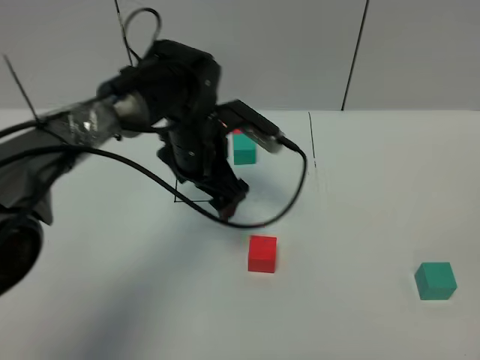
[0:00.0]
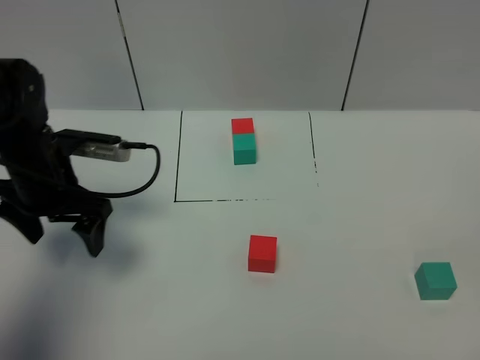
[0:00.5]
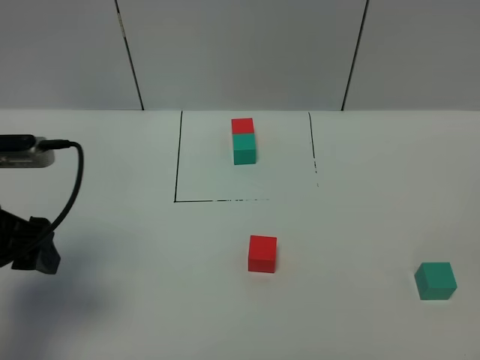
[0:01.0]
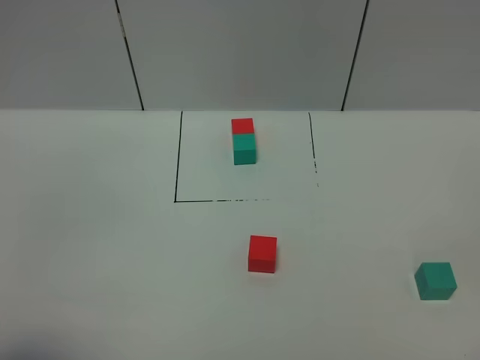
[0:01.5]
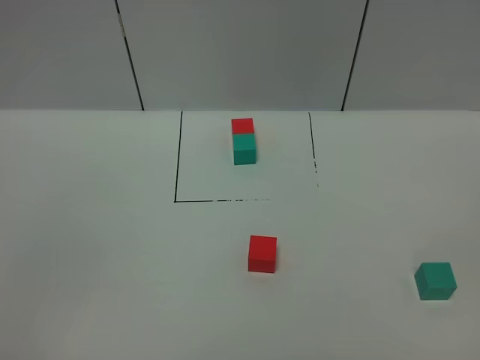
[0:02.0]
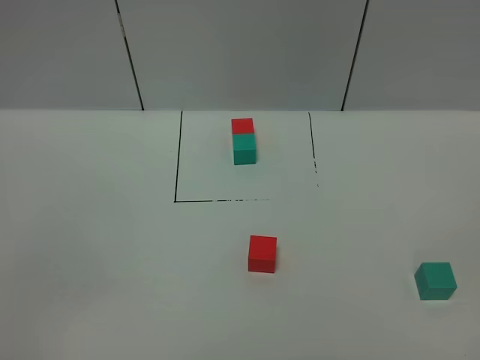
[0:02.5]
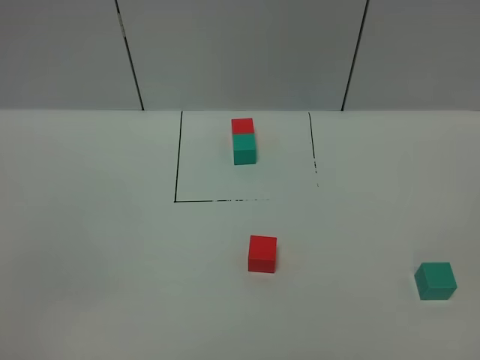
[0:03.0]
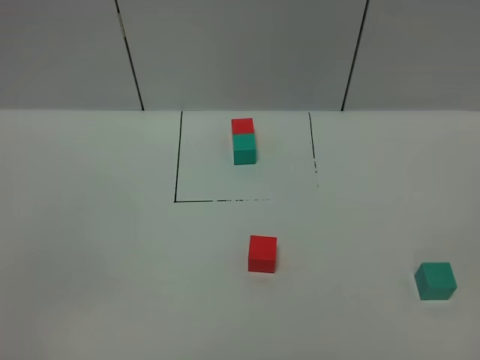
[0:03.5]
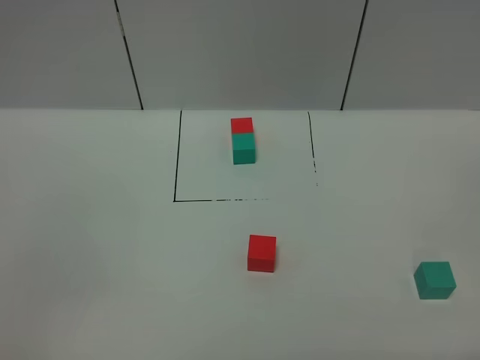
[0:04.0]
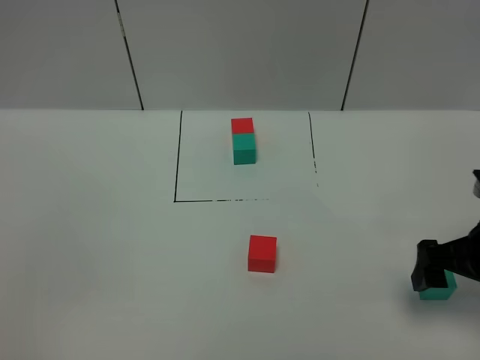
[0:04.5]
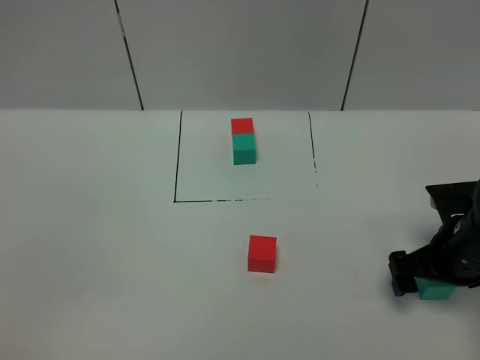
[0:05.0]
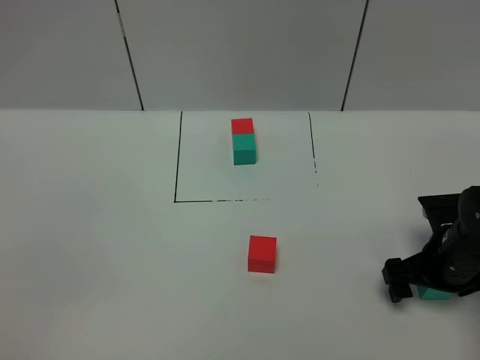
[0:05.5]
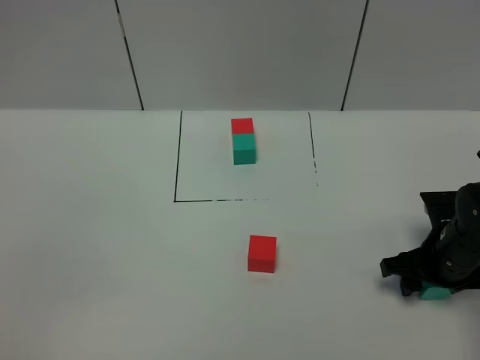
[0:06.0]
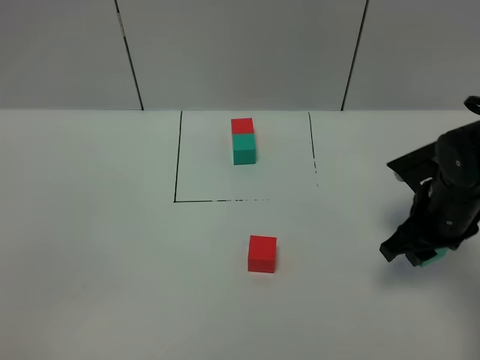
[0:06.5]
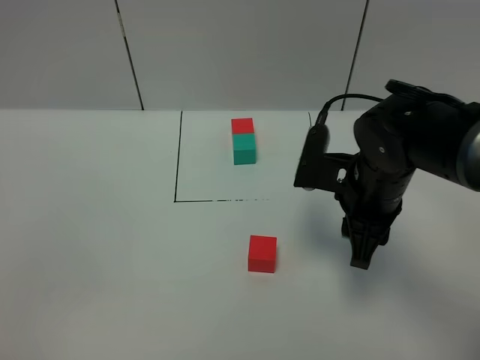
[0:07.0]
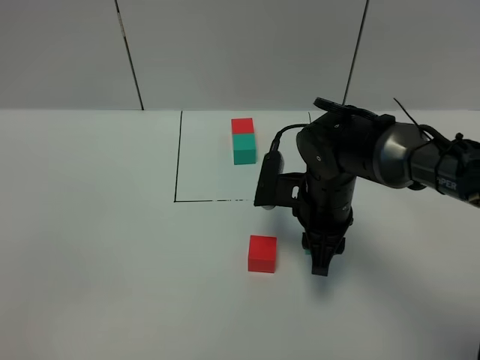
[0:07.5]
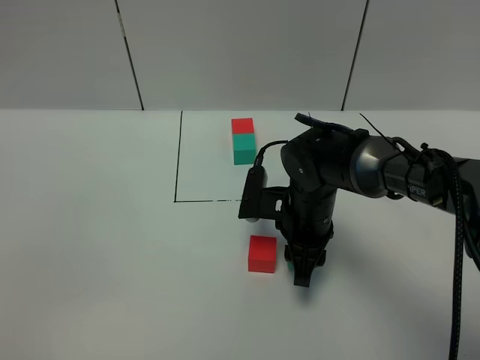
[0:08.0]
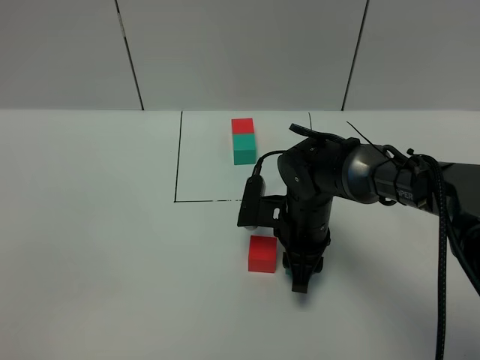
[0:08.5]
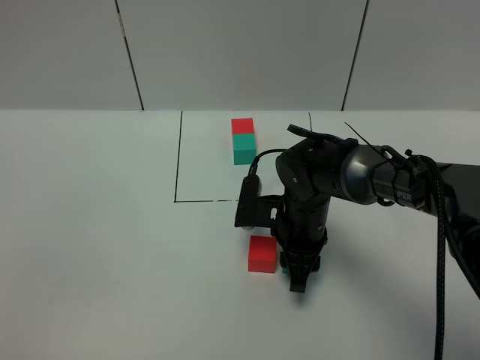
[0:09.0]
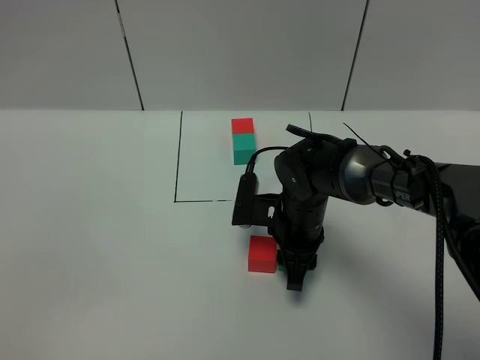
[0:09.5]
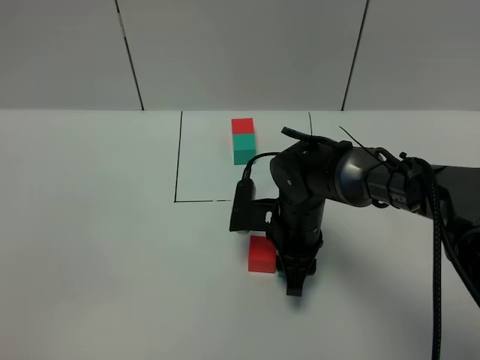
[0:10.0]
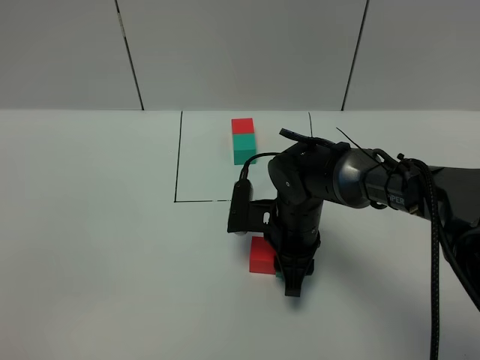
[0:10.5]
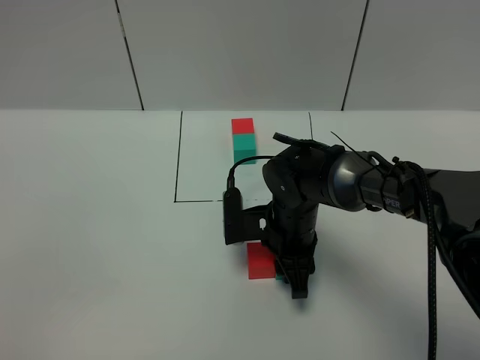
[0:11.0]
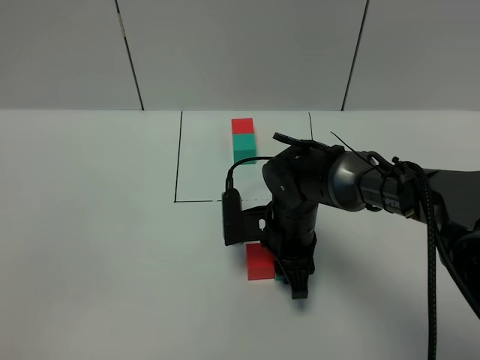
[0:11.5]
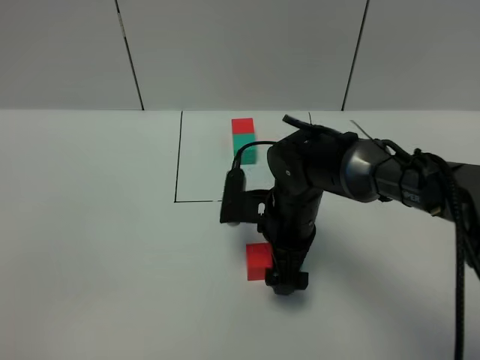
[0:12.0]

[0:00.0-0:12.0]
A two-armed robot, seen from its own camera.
Task of the whole recording: According to the building block template in front, assemble the scattered blocks together.
0:00.0 to 0:02.0: The left gripper goes some 50 cm backward and to the left.
0:04.0 to 0:06.0: The right gripper goes about 30 cm forward and downward, and closes its fingers.
0:06.0 to 0:08.0: The right gripper moves to the left, roughly 20 cm.
0:08.0 to 0:10.0: There are only small adjustments of the grippers.
0:10.0 to 0:12.0: The right gripper opens.

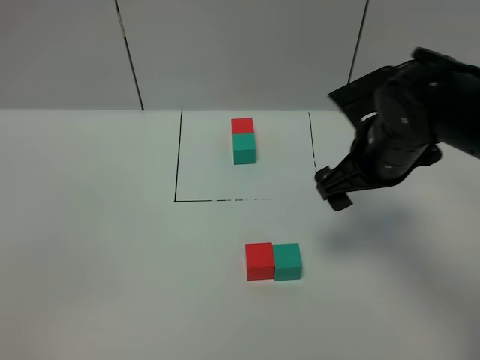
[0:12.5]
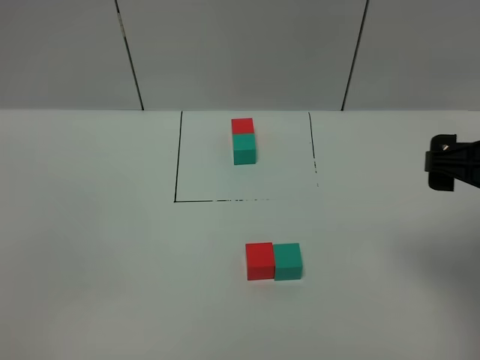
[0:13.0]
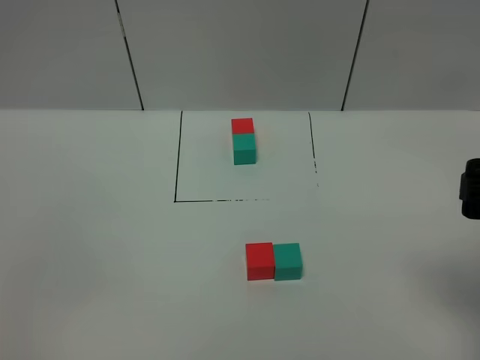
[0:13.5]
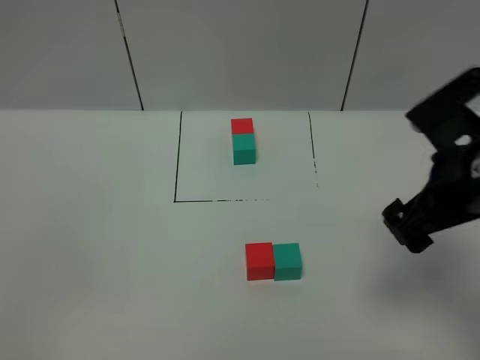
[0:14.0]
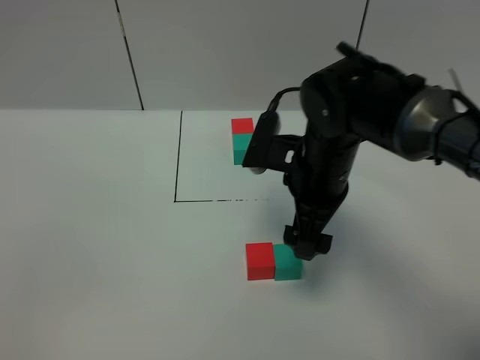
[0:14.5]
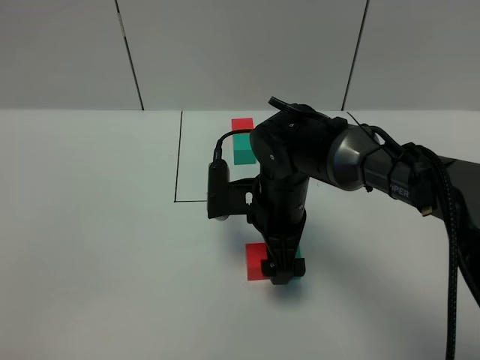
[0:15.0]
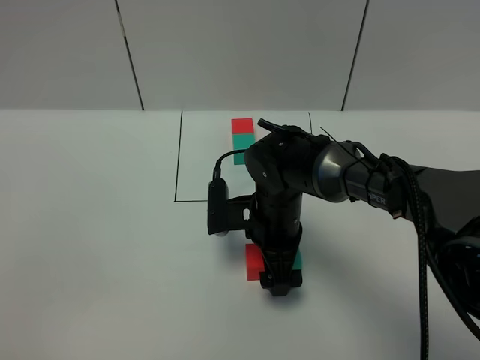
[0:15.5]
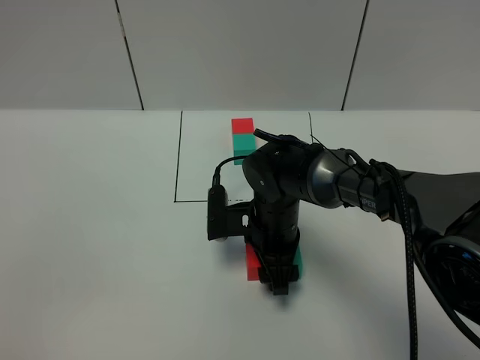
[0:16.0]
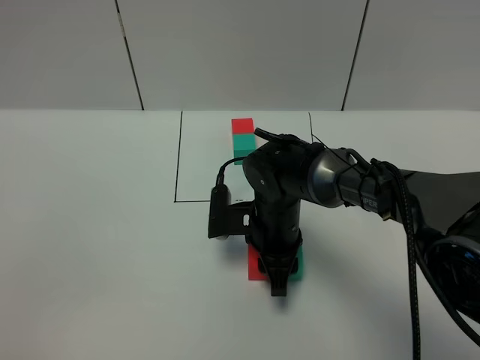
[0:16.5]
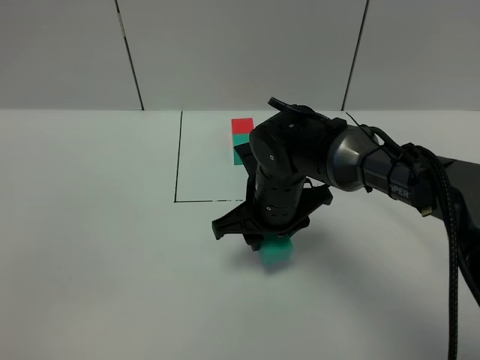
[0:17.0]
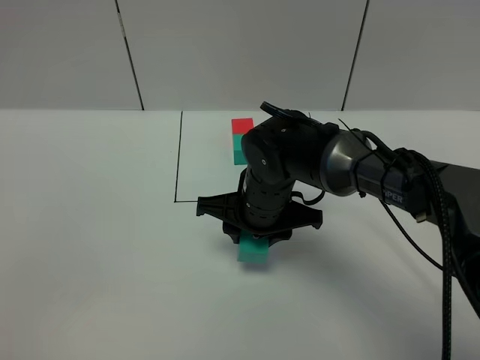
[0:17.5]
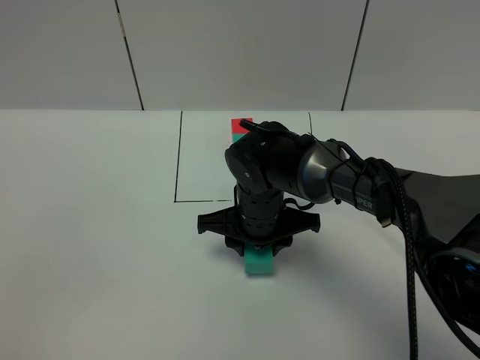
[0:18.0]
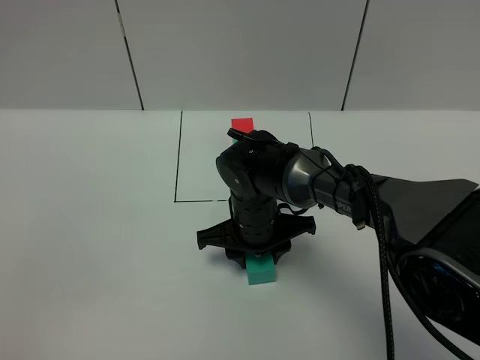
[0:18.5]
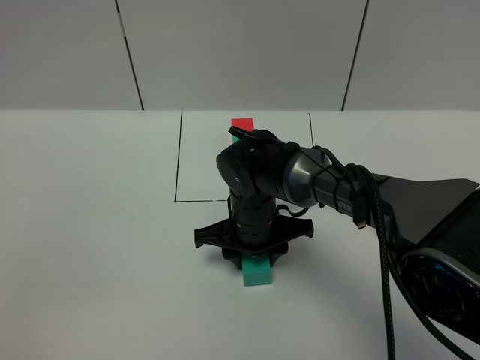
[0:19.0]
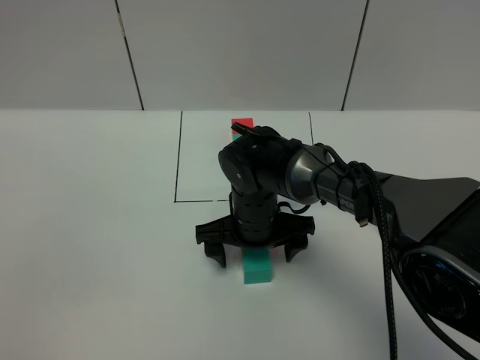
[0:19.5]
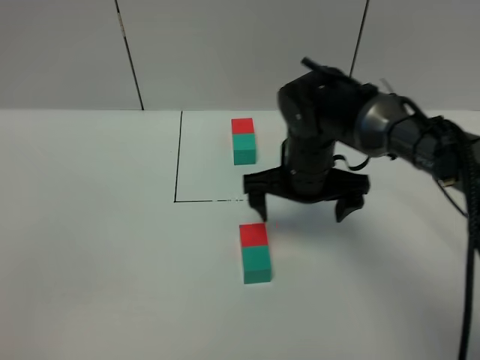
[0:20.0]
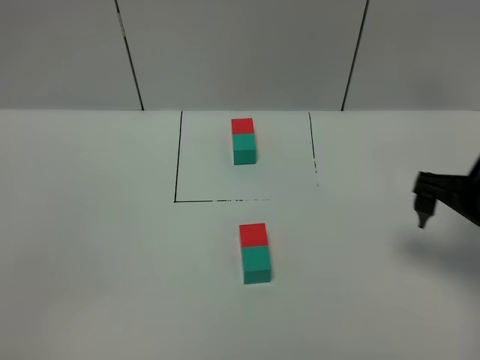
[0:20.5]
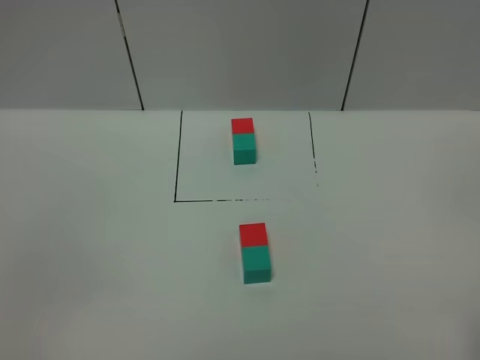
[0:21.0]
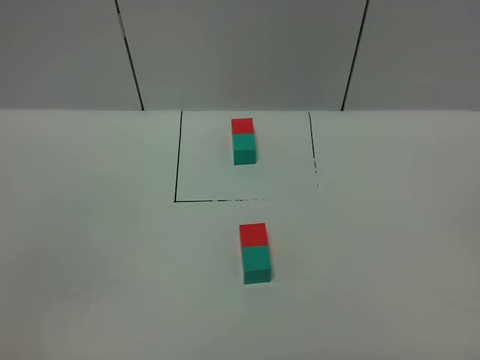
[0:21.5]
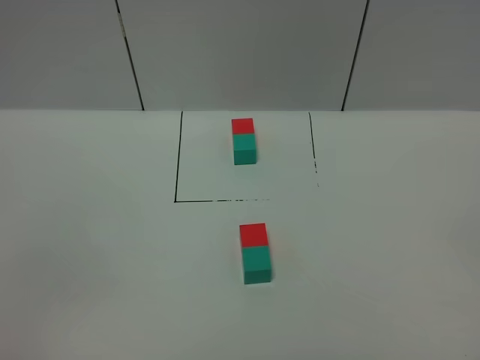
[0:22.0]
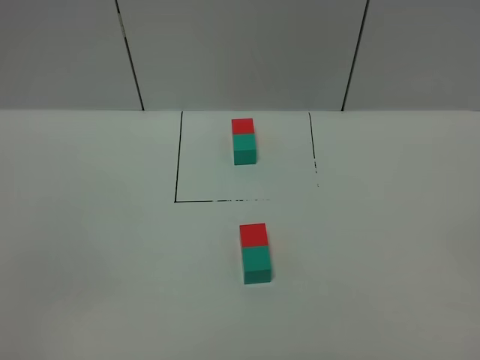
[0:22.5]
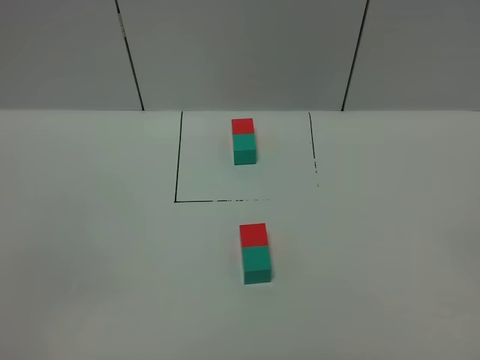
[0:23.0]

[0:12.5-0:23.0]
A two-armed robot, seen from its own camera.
Task of the whole recording: According to the building block template in front, assemble the scattered blocks together.
Step, 0:12.5 to 0:19.5: Adjust the pose of the building blocks.
0:12.5 to 0:14.5: The right gripper is displaced to the left by some 10 cm.
0:14.5 to 0:16.5: The right gripper is displaced downward by roughly 10 cm, and closes up.
0:19.0 to 0:21.0: The right gripper moves to the right, backward and upward, some 40 cm, and opens.

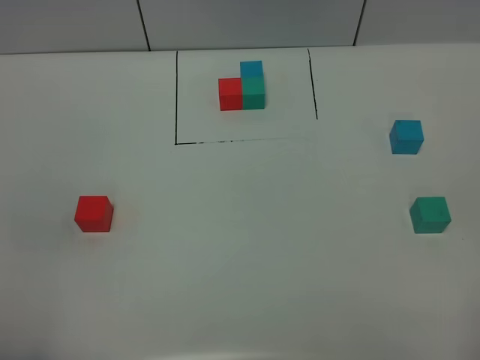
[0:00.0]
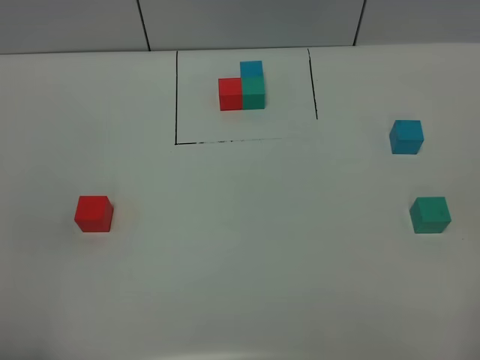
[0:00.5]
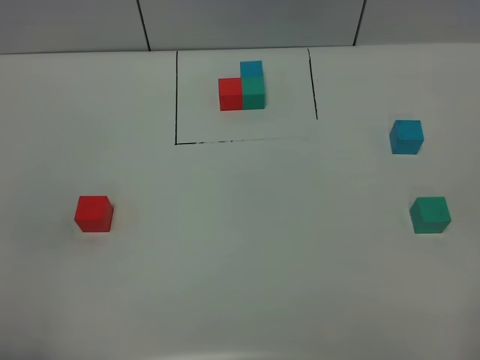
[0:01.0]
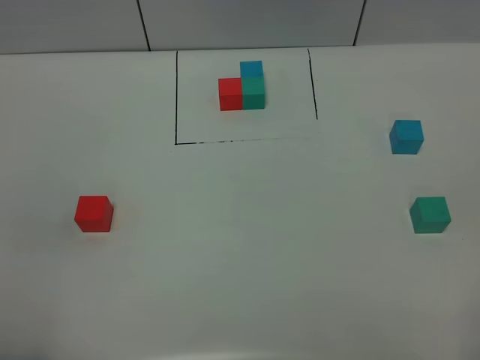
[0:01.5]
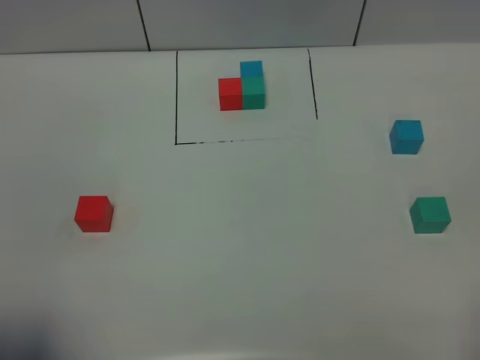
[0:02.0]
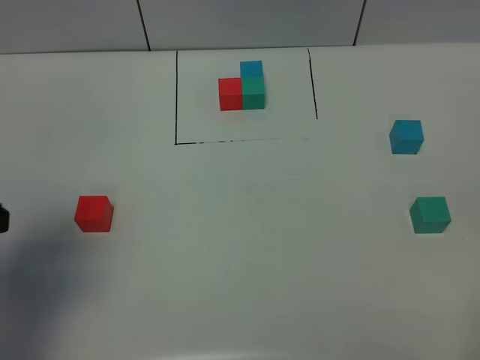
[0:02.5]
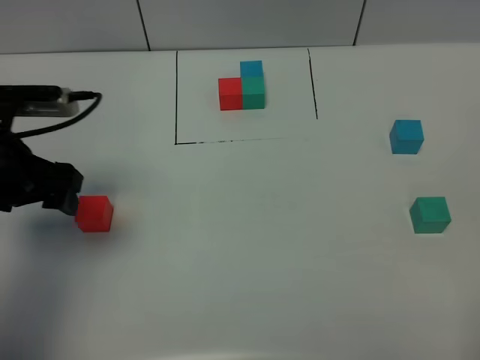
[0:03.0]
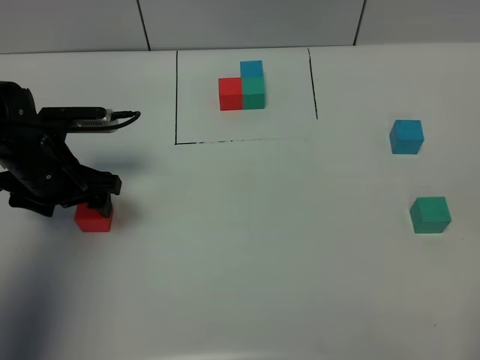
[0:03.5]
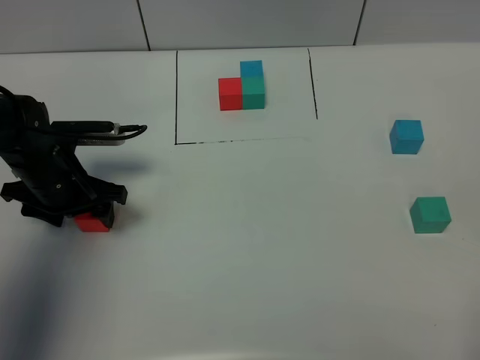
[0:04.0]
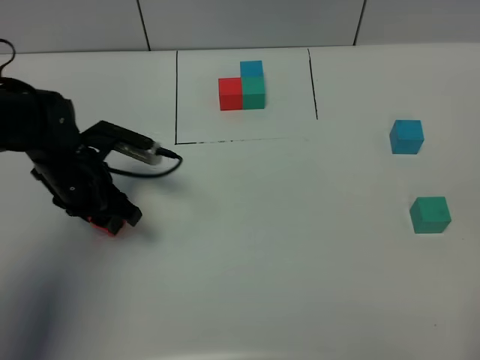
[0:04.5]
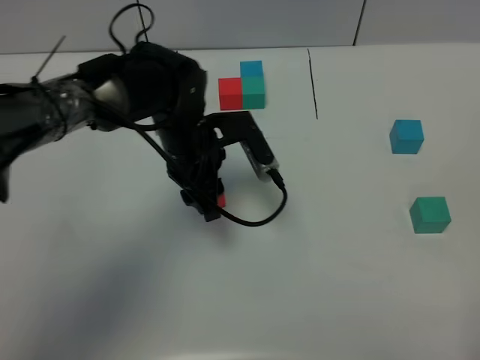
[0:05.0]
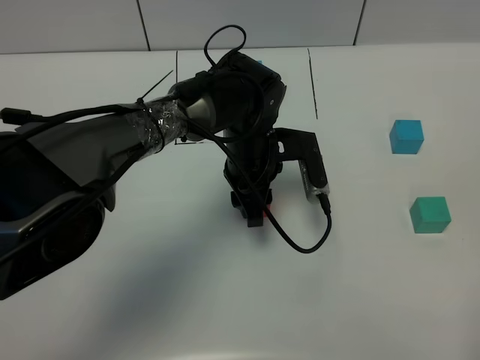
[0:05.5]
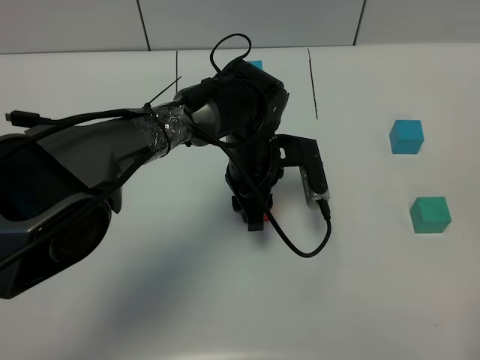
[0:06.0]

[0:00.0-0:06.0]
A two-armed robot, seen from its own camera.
Task of the whole recording: According to the building block template in front, assemble the scattered blocks together.
0:02.0 to 0:04.0: The left gripper travels forward and downward by approximately 35 cm.
0:04.0 to 0:06.0: The left gripper moves to the right, about 25 cm, and closes its fingers.
